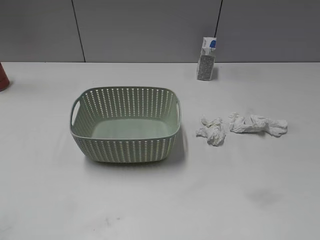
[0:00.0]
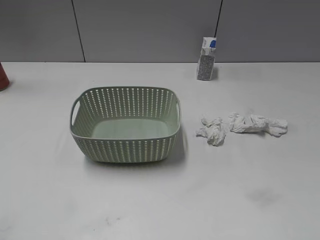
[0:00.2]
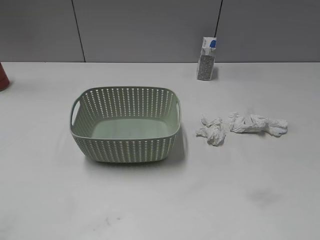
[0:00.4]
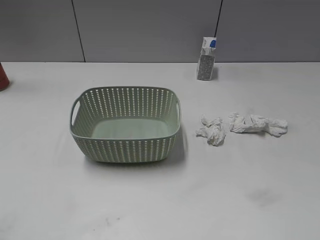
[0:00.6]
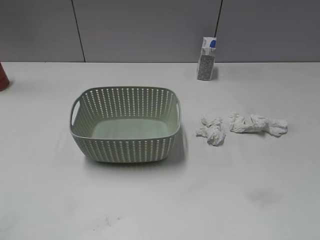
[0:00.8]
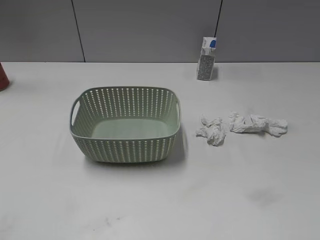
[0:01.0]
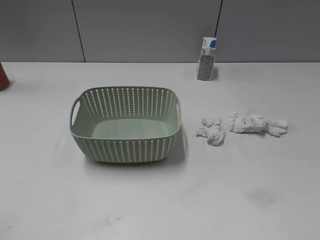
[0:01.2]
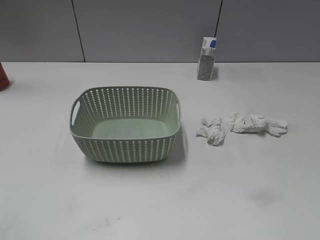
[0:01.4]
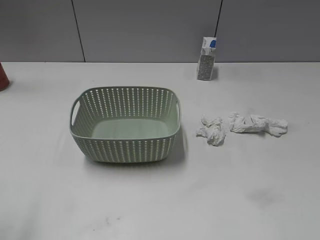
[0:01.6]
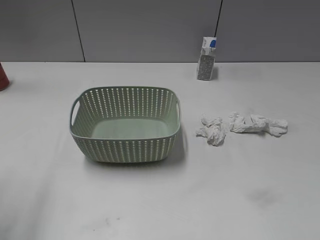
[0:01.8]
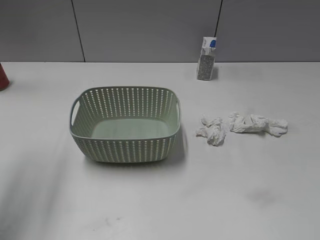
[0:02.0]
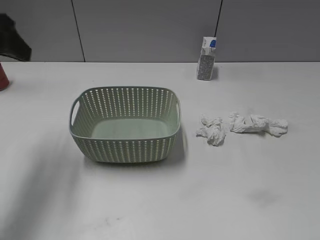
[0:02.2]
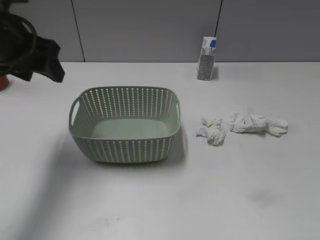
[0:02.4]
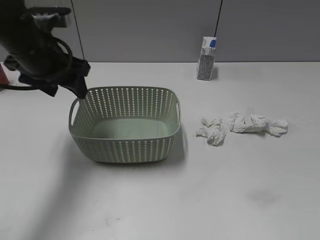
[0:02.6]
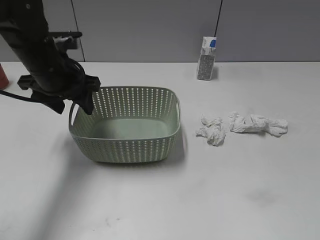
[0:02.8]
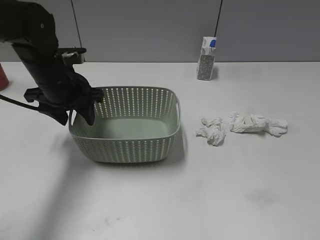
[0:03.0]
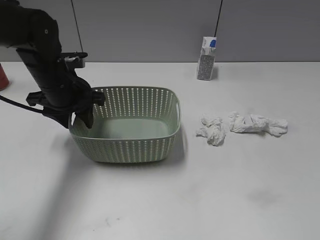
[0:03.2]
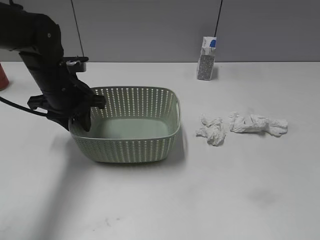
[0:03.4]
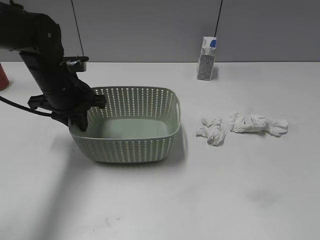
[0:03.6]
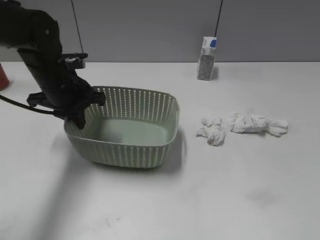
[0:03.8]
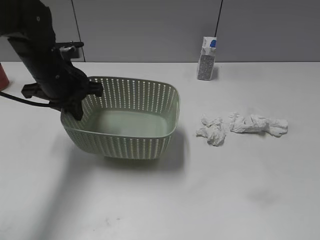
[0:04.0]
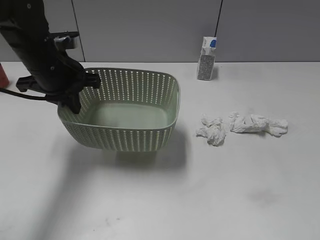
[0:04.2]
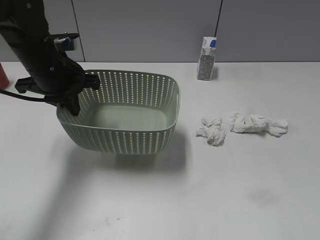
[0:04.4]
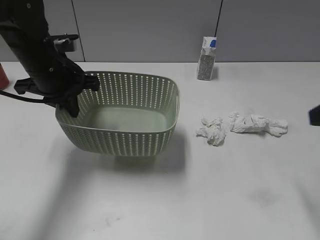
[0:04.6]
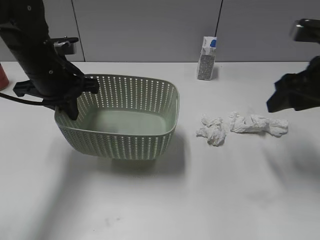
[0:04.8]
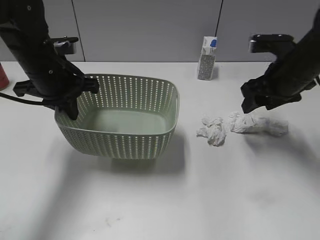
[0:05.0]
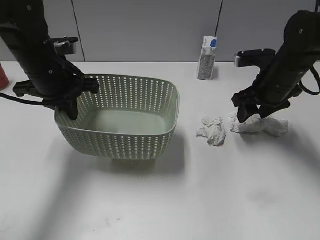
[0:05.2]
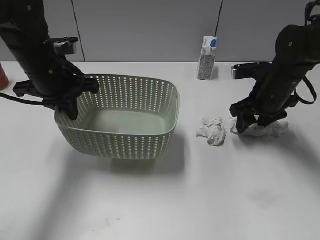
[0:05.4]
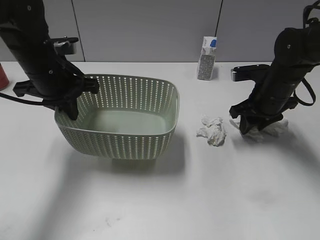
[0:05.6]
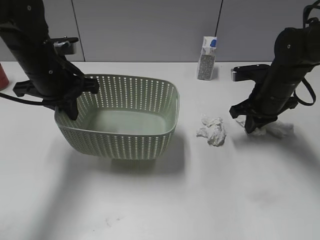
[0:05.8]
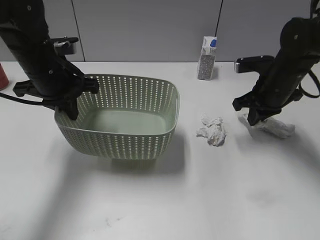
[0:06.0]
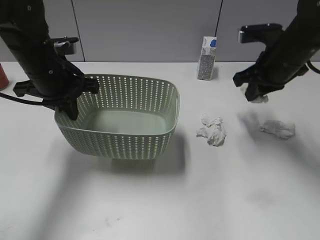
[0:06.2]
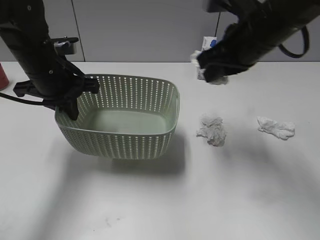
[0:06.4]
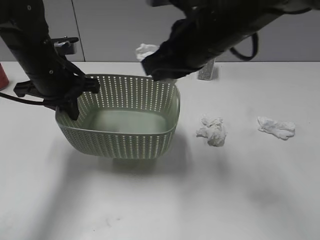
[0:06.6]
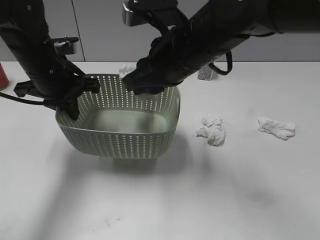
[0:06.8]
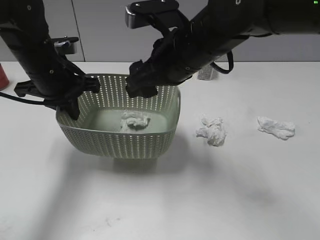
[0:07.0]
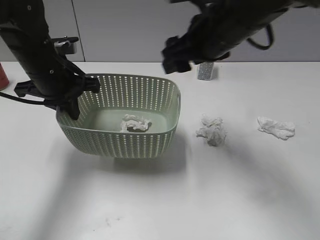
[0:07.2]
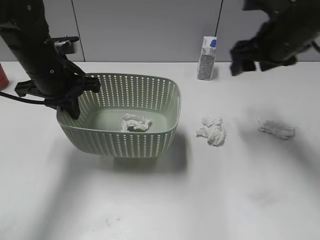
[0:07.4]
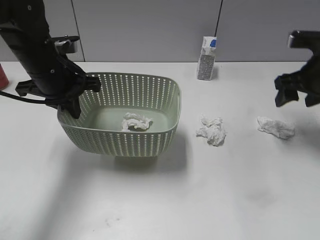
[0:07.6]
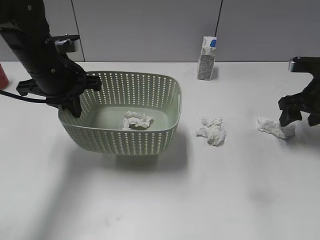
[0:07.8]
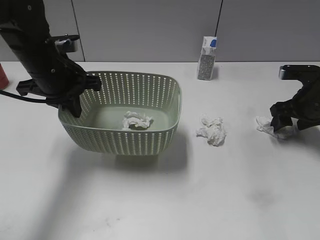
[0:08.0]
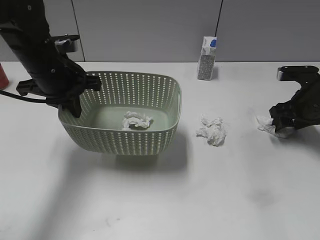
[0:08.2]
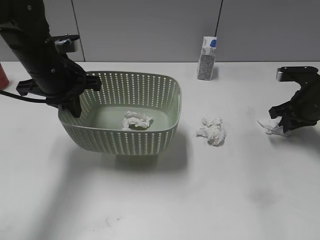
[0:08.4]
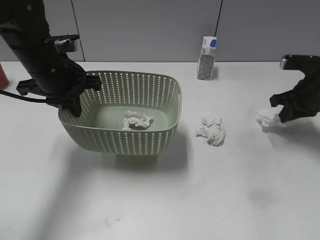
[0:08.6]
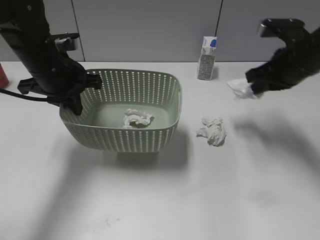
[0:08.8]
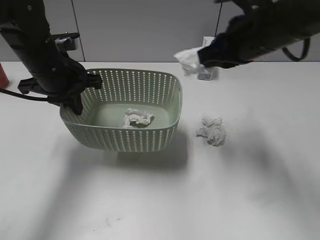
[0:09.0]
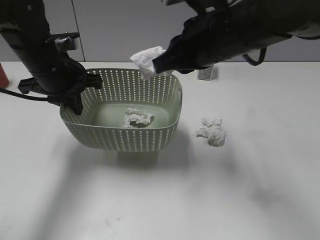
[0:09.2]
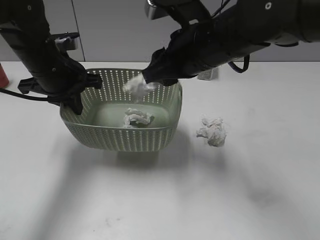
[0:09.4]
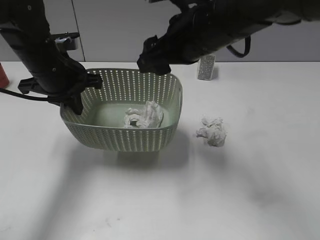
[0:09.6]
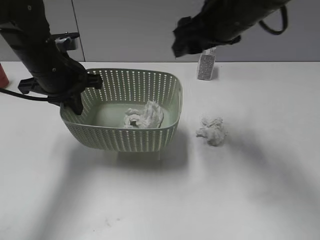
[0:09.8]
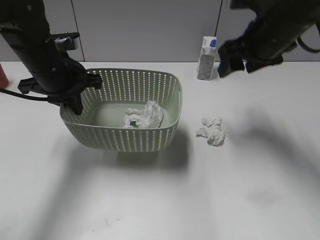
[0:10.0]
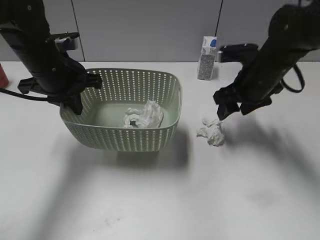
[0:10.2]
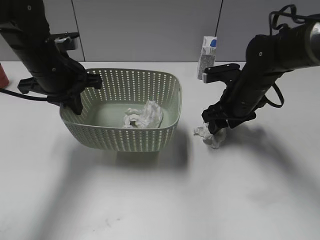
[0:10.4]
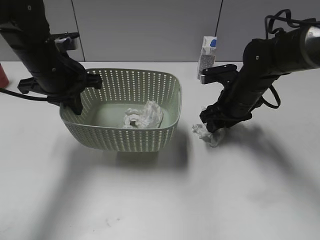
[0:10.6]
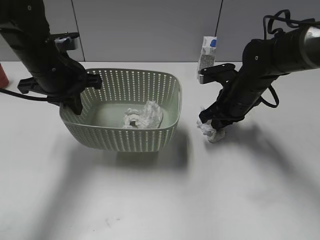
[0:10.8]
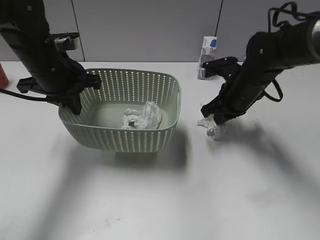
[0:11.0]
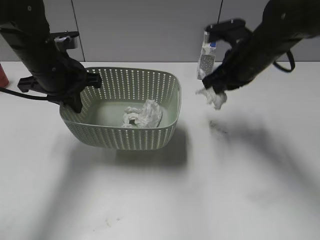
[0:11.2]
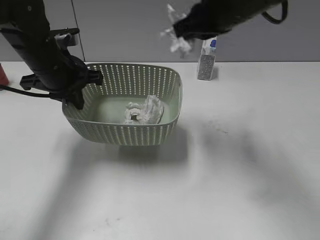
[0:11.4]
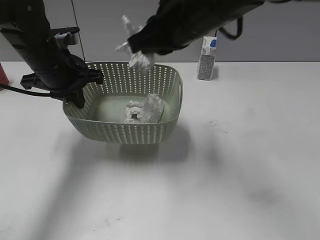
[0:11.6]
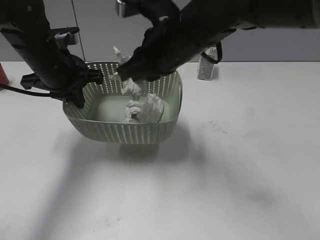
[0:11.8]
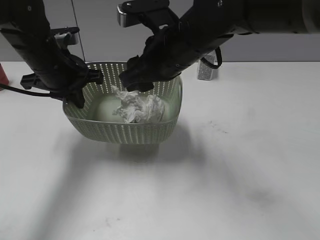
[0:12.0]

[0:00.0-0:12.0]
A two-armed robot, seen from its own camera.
Step, 1.8 to 3.8 s: Grasp the basket with left gripper.
Step, 4.2 to 6.0 s: Grasp the waste paper with right gripper.
Step, 6.2 to 7.0 s: Place the waste paper in the basket with right gripper.
Step, 7.2 to 8.4 s: Grasp the waste paper with right gripper.
Step, 8.6 to 9.6 s: Place the waste paper in the basket with right gripper.
Step, 9.8 to 11.0 s: Grasp the waste paper with right gripper.
1.6 to 3.0 s: The left gripper goes some 35 cm forward, downward and to the right.
3.0 to 4.4 s: The left gripper closes up, while the right gripper is displaced forward by about 10 cm.
4.4 to 6.0 s: The right gripper travels forward and downward by some 30 cm, and closes up.
6.0 to 7.6 s: The right gripper travels upward by about 5 cm, moves some 20 cm to the left and comes back, and opens its fingers.
7.6 to 9.0 s: The right gripper shifts approximately 15 cm to the left and upward, and closes up.
9.0 to 10.4 s: The right gripper travels downward by about 15 cm, and opens.
10.4 to 12.0 s: The right gripper moves to the left, upward and backward, some 20 cm, and closes and opens again.

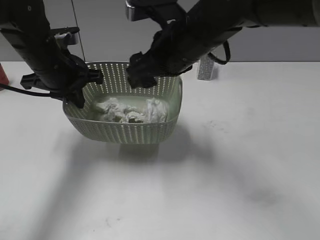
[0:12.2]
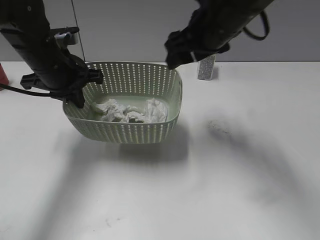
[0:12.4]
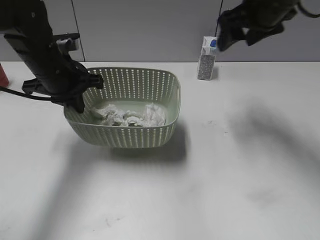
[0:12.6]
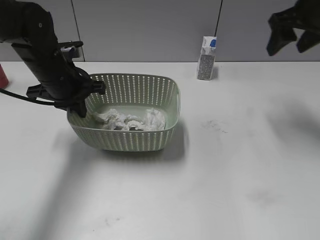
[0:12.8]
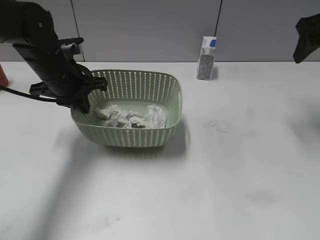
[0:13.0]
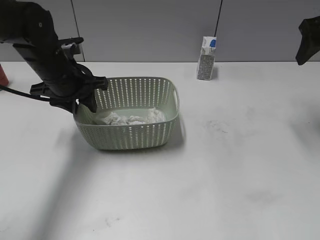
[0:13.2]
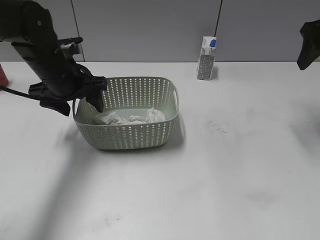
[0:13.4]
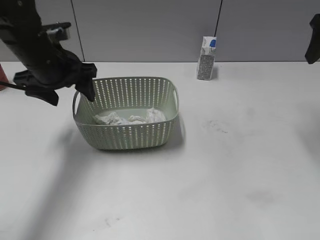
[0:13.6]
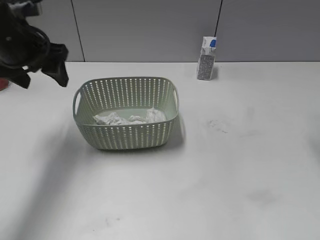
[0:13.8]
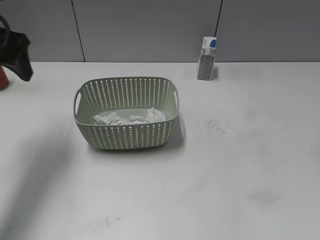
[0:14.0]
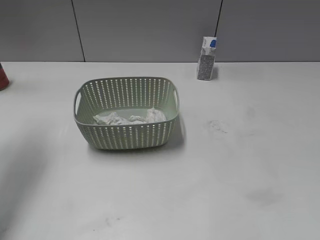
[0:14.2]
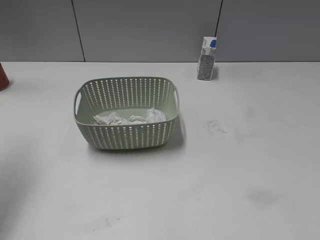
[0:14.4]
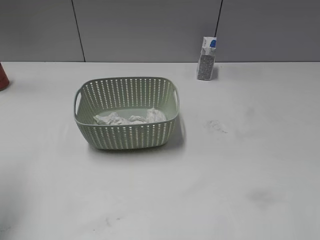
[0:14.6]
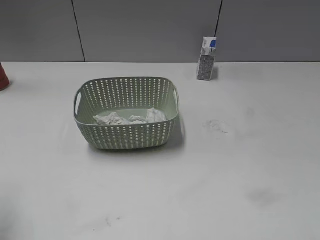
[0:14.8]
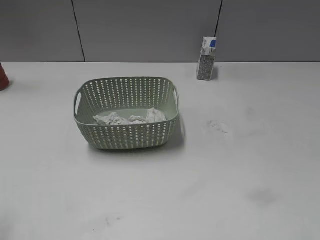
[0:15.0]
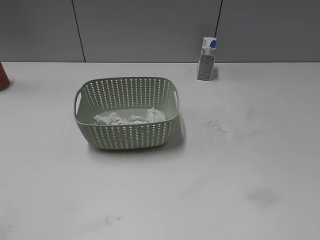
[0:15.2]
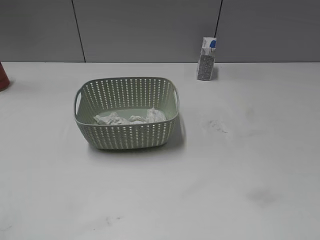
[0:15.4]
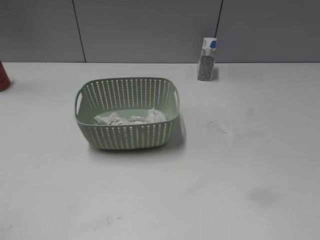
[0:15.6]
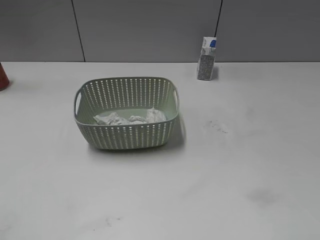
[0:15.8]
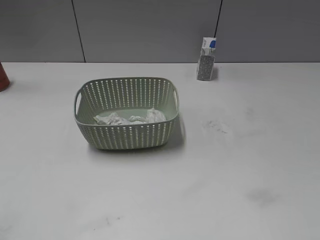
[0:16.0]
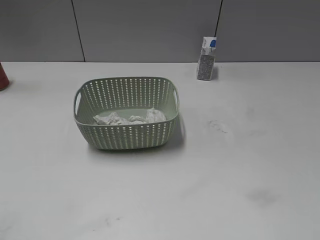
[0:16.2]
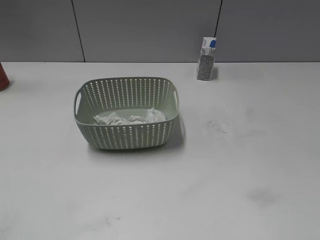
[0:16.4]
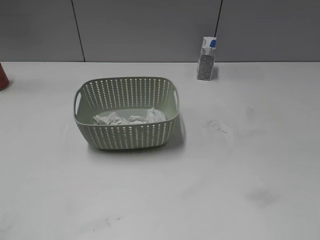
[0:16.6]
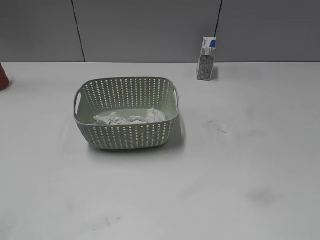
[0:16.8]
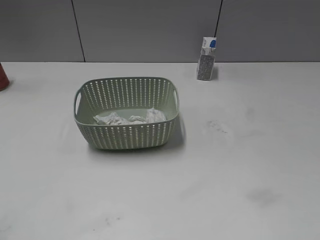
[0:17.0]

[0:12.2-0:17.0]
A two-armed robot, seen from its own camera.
12.2 to 13.8 s: The right gripper goes some 25 cm to the right; the left gripper moves upward, about 5 cm, and opens.
13.8 to 15.4 s: The grippers both shift backward by about 30 cm.

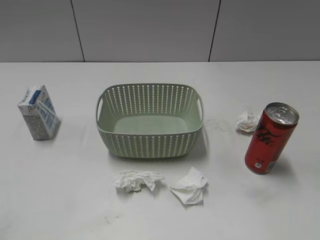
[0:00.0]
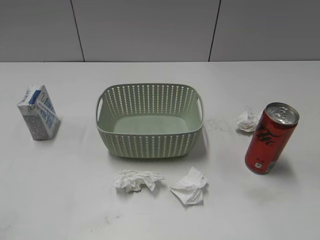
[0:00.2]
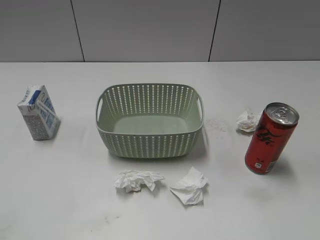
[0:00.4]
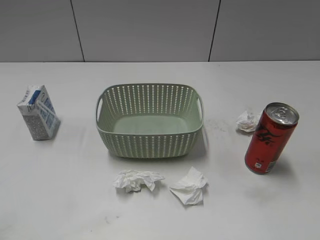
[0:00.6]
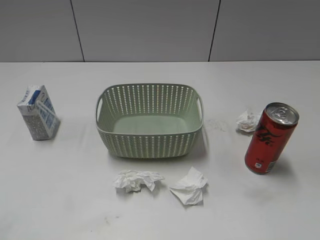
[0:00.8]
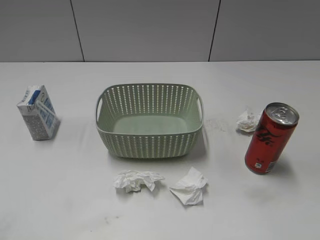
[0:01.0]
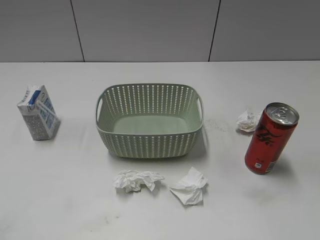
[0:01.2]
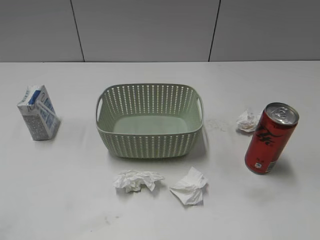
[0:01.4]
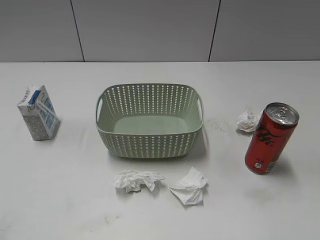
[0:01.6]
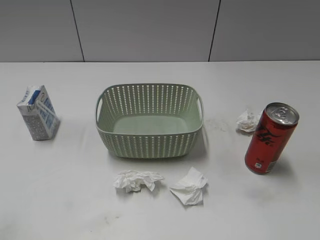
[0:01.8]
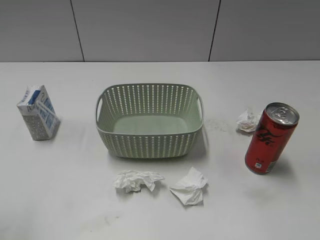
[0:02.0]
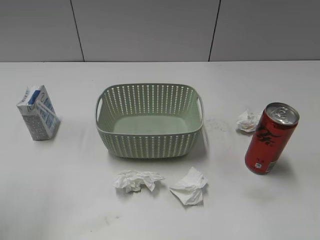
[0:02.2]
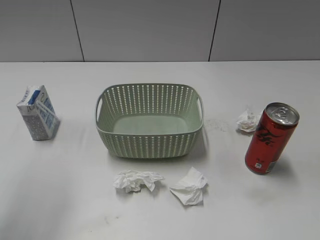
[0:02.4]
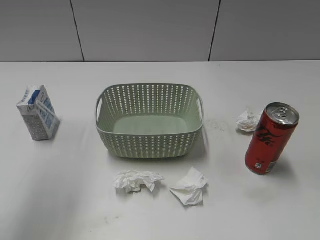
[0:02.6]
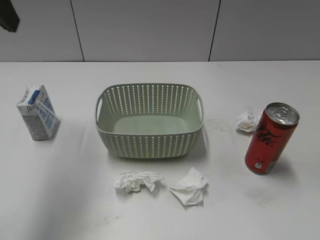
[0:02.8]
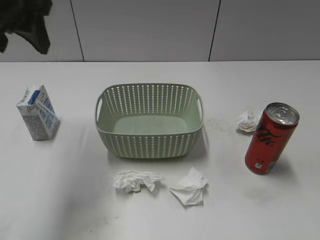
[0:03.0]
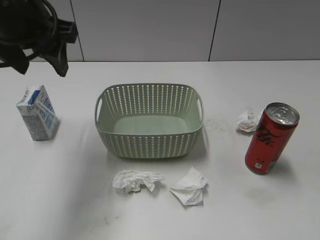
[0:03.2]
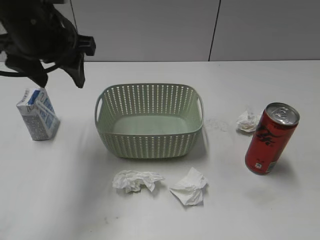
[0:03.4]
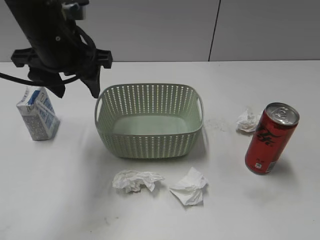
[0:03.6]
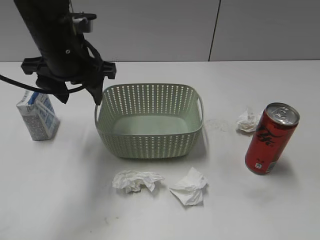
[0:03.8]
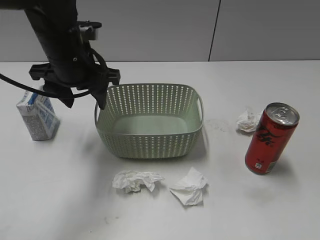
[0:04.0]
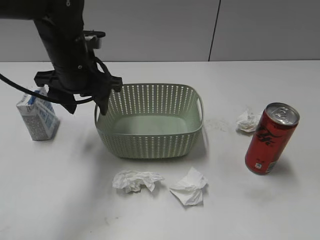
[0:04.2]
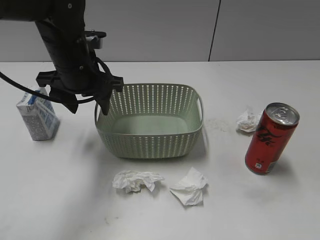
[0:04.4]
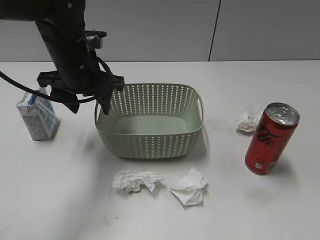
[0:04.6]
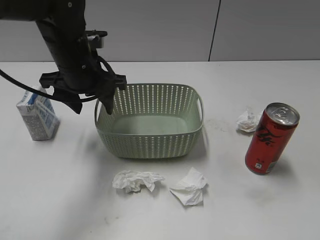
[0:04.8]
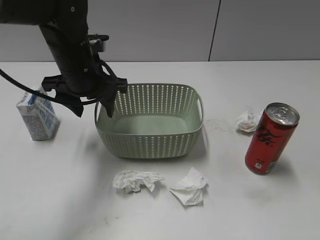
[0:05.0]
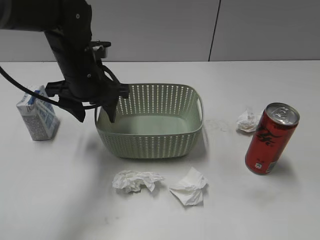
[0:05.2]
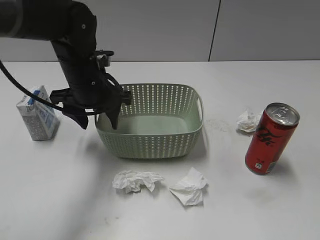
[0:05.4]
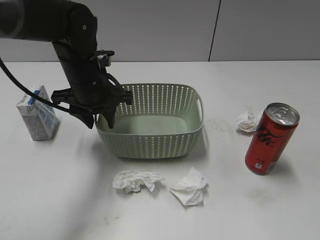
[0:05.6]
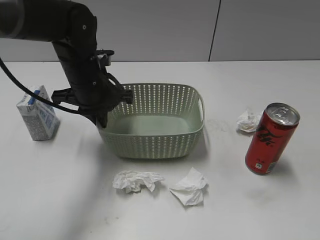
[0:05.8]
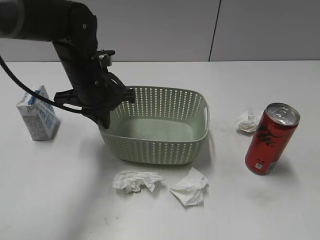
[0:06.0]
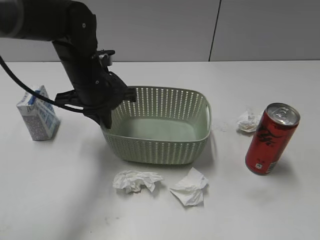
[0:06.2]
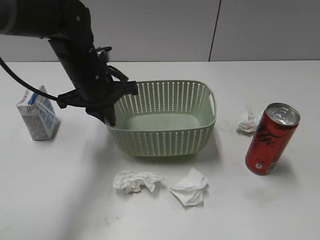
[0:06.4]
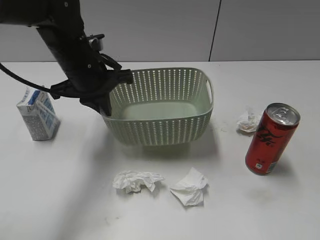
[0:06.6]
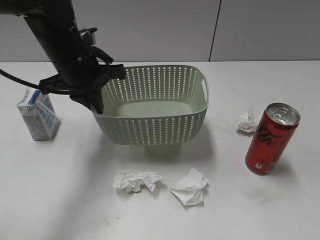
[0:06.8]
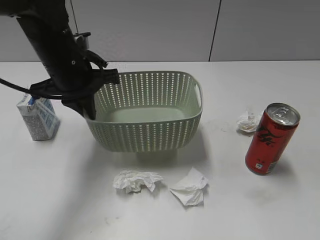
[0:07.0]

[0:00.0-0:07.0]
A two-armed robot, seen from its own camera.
Step, 2.8 to 5.8 s: Grasp the basket with left gripper.
1.4 to 2.8 s: The left gripper moves forward, roughly 25 cm.
2.8 to 4.2 s: The left gripper moves downward, to the right and forward, approximately 20 cm.
4.2 to 5.6 s: The grippers stay close to where they were, moving slightly.
5.6 to 7.0 s: The left gripper ends up approximately 5 cm from where it was, and closes up.
